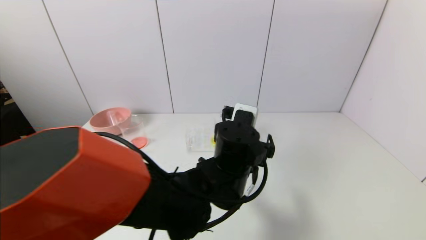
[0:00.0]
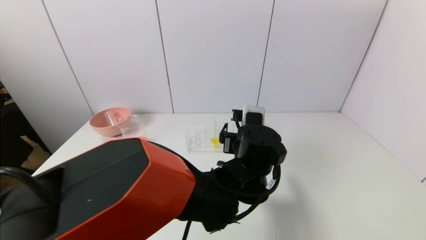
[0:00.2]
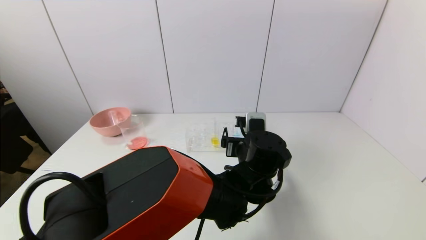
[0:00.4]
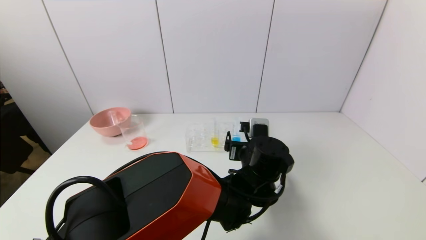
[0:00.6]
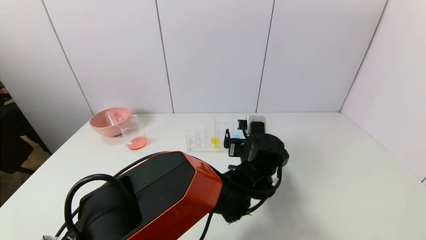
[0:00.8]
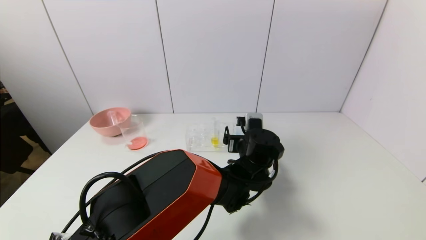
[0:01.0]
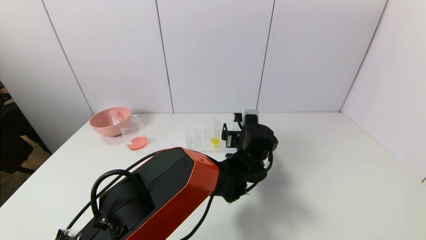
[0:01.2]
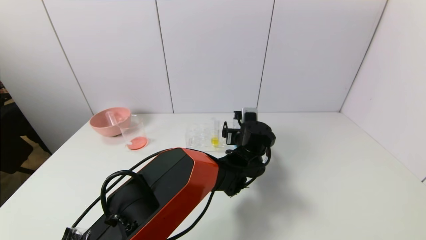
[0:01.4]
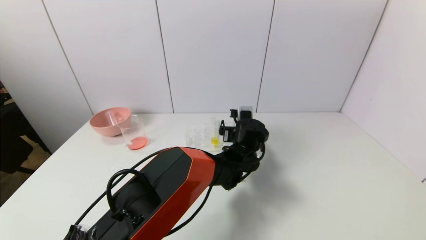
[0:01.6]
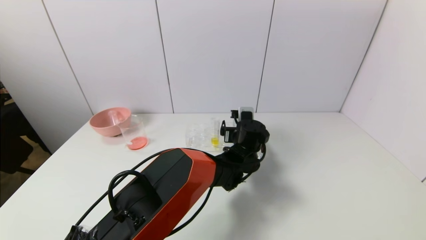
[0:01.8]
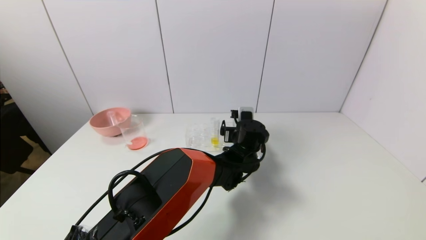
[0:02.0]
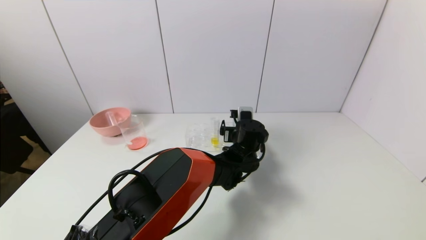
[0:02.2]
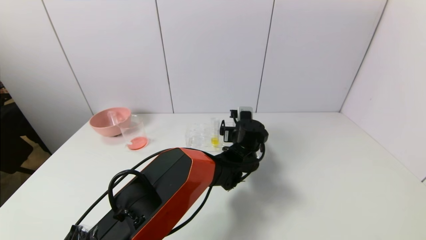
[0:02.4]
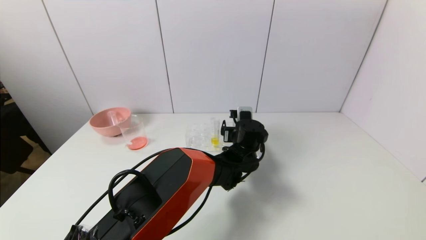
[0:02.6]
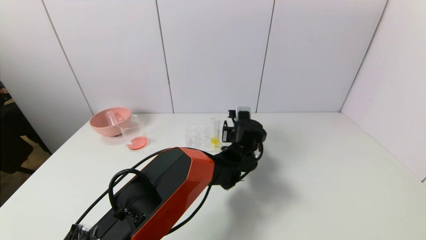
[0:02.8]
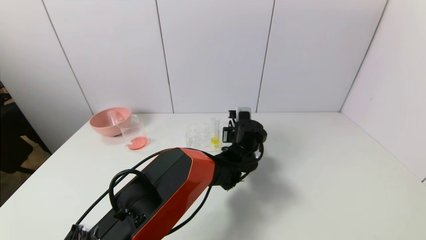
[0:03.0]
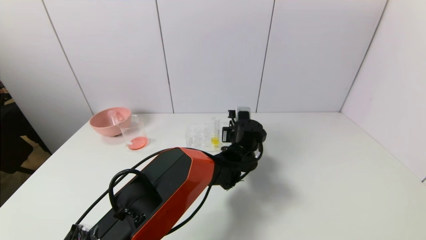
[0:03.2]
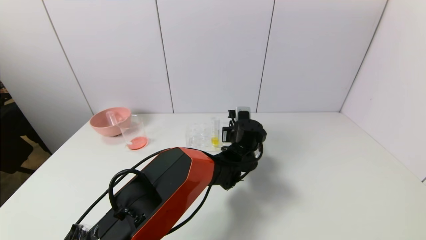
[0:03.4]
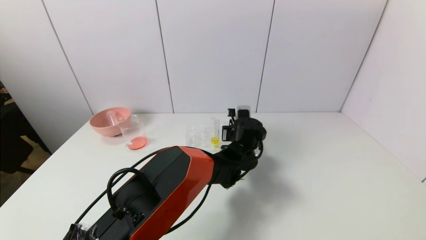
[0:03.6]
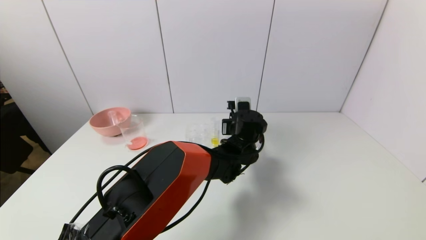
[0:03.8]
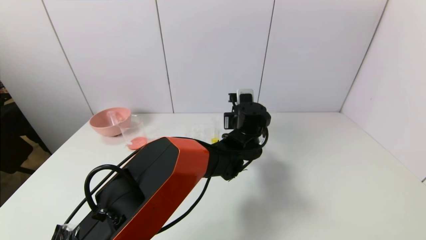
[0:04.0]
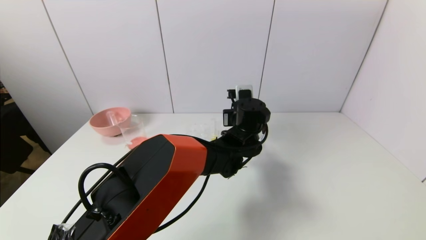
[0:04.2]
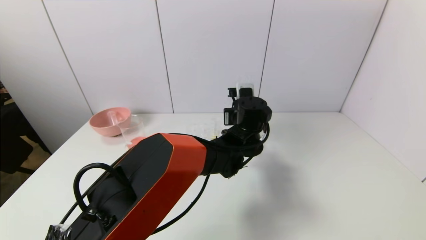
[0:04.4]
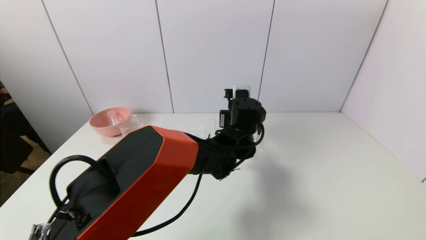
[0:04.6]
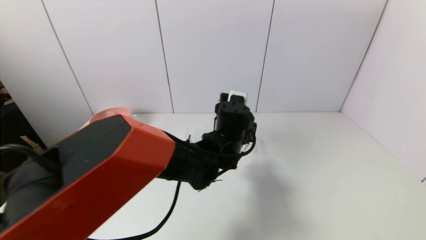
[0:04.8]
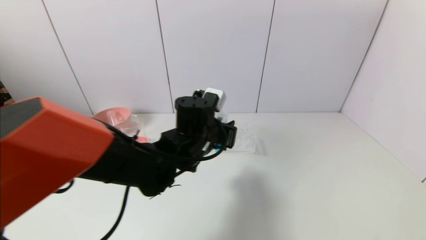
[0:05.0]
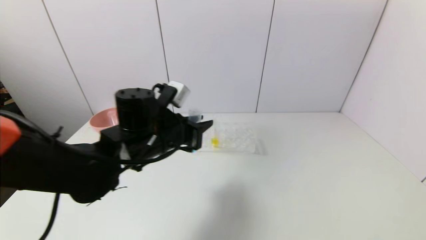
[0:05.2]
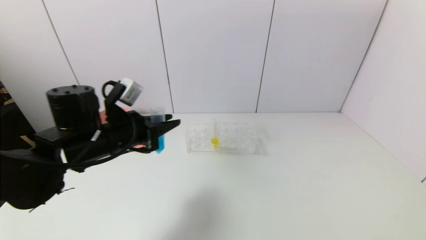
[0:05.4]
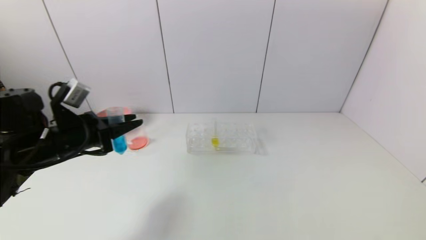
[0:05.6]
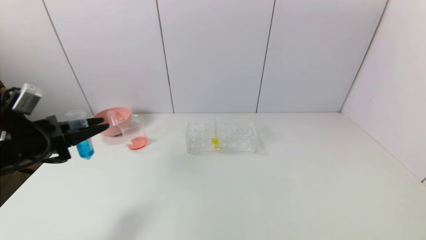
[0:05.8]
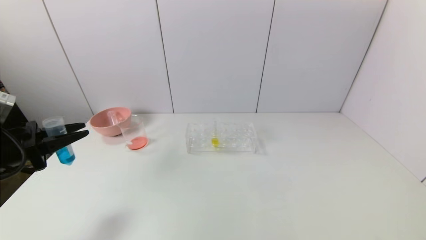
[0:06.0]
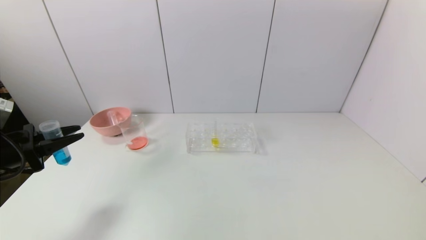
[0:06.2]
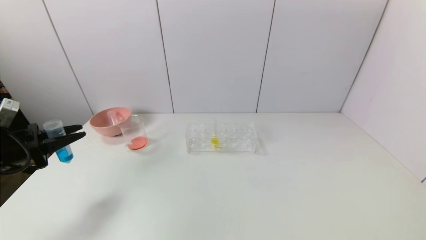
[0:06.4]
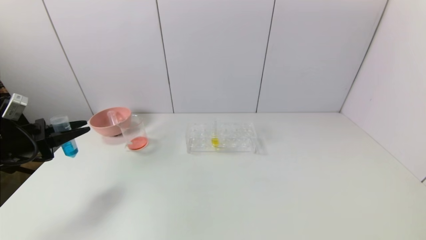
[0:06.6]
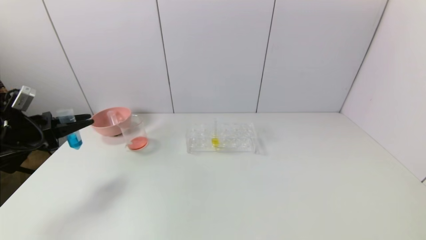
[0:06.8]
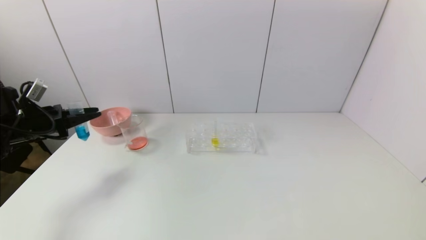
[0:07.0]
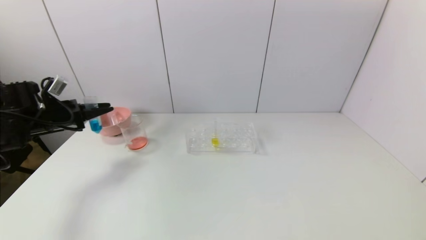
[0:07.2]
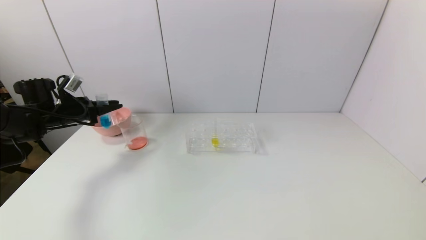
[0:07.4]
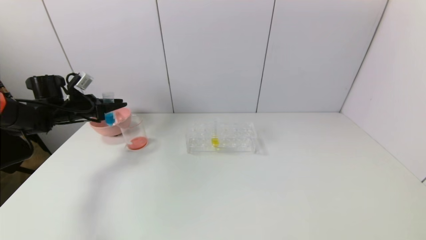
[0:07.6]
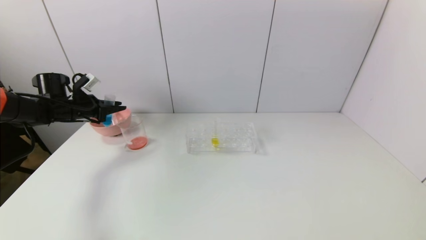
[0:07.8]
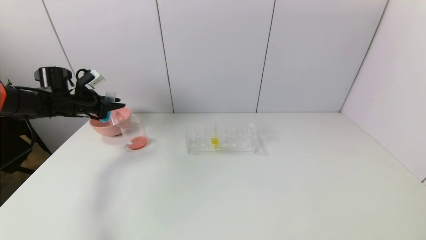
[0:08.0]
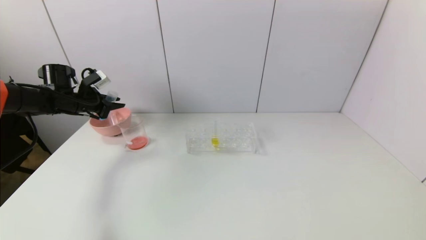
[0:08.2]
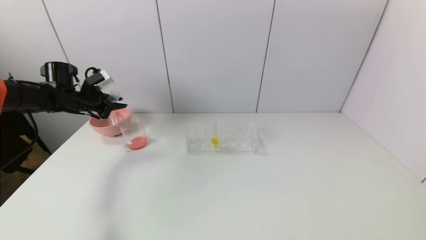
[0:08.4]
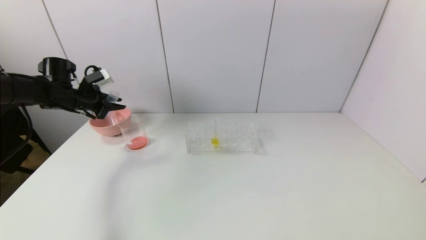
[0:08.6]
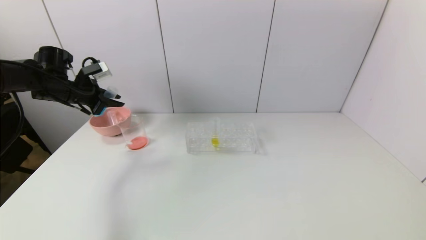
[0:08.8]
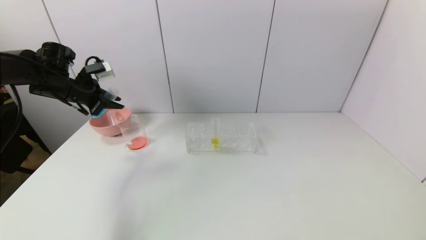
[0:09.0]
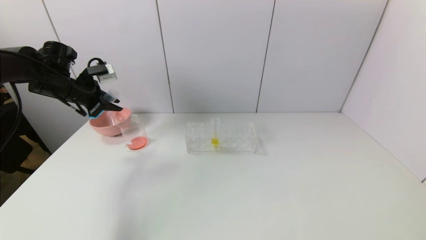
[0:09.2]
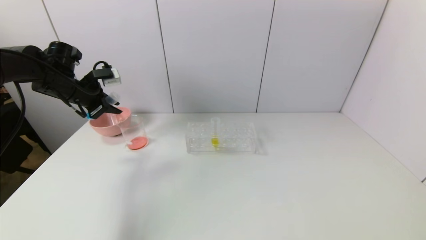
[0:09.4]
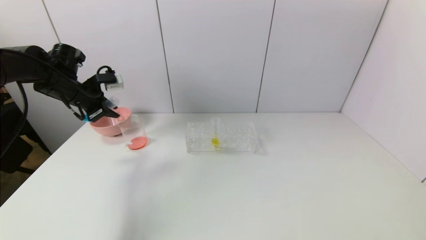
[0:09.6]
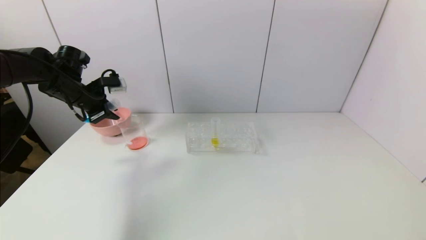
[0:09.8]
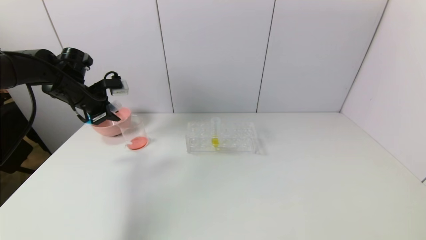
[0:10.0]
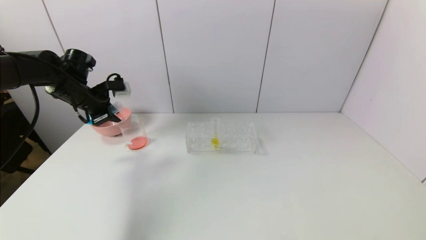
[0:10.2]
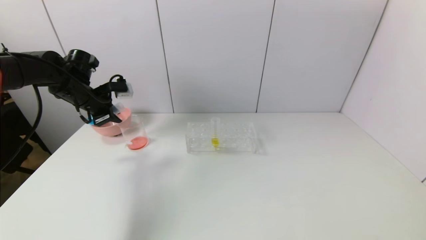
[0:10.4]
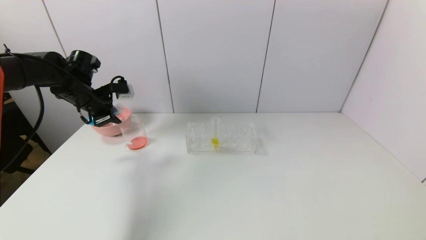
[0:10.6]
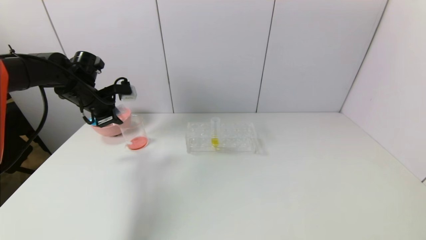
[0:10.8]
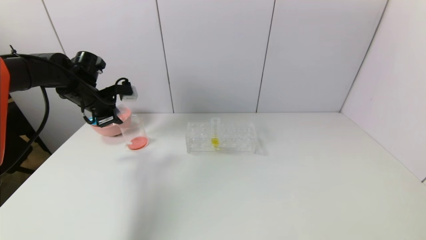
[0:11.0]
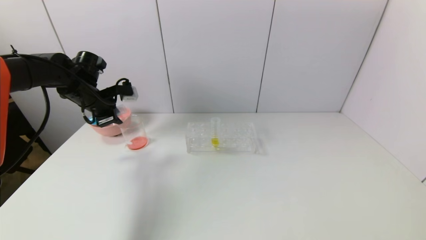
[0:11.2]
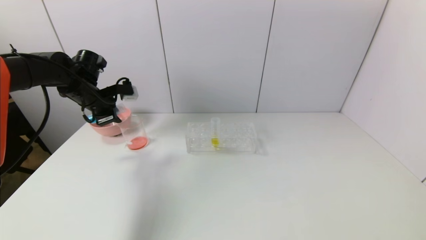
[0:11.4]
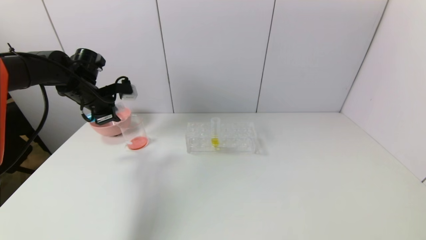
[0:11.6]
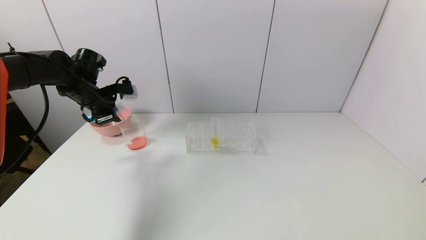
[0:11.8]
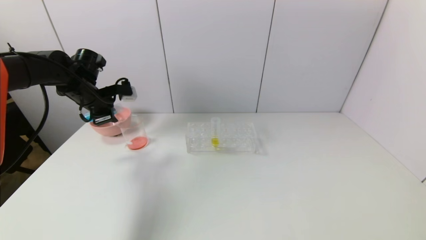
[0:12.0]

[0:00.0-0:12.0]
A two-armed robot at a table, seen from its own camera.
Task of the whole recording: pick up the test tube with red pigment and the test tube with blue pigment by grippers and pour them into the container.
Step, 0:00.0 to 0:03.0: Grasp the blue reagent with the left gripper.
0:00.0 to 0:01.6: The left gripper goes roughly 15 cm forward, downward and to the right.
0:01.6 to 0:03.0: The left gripper closes up.
0:03.0 to 0:04.4: The left gripper heads upward, covering some 10 cm.
0:04.4 to 0:06.0: The left gripper moves to the left, approximately 50 cm.
0:06.0 to 0:07.6: The left gripper shifts some 20 cm forward.
0:07.6 to 0:09.0: The left gripper moves upward, some 10 cm.
0:10.4 to 0:12.0: The grippers move only a little.

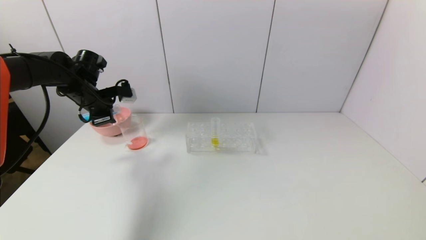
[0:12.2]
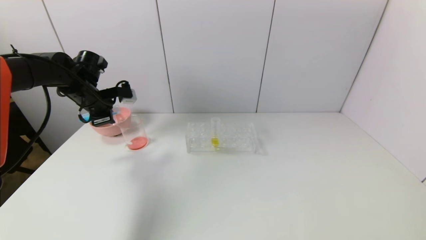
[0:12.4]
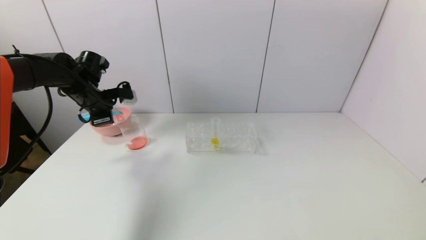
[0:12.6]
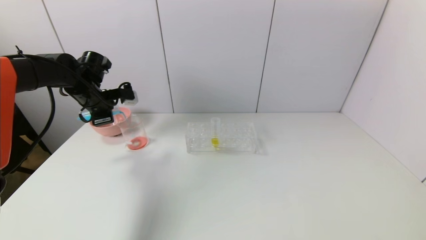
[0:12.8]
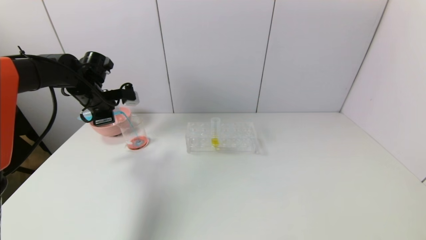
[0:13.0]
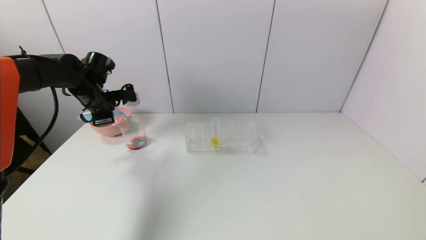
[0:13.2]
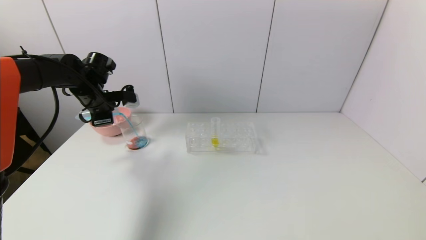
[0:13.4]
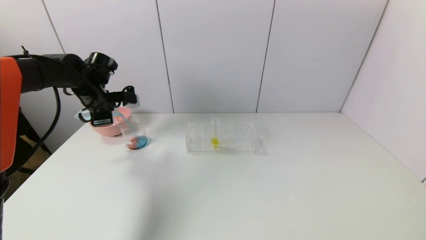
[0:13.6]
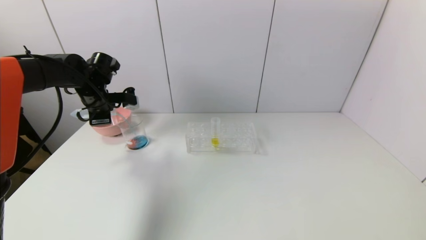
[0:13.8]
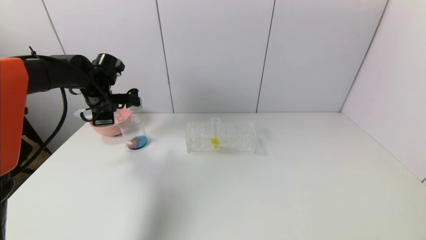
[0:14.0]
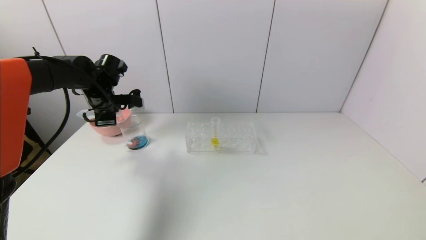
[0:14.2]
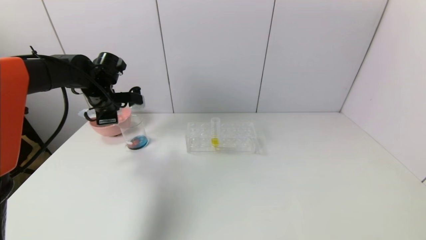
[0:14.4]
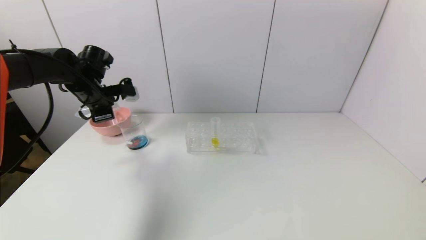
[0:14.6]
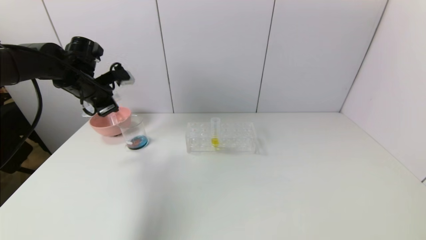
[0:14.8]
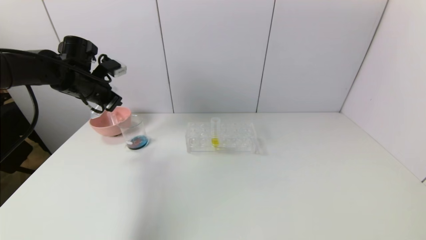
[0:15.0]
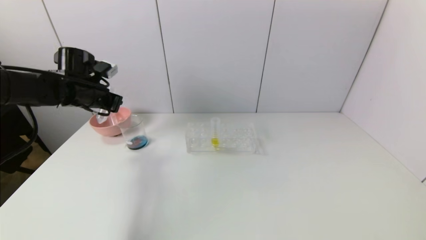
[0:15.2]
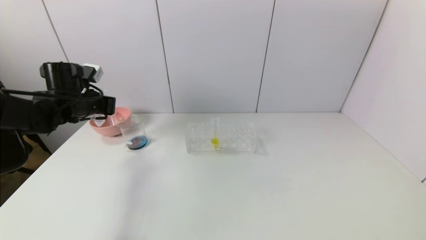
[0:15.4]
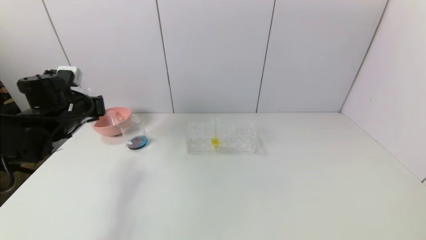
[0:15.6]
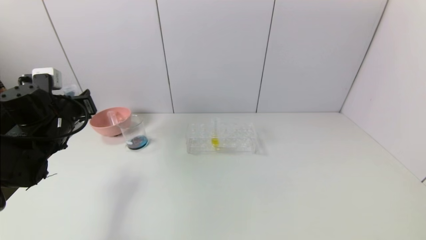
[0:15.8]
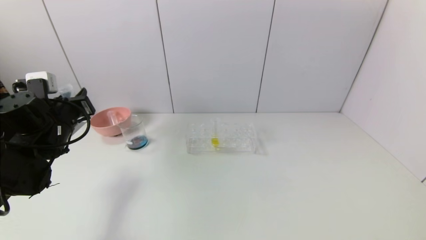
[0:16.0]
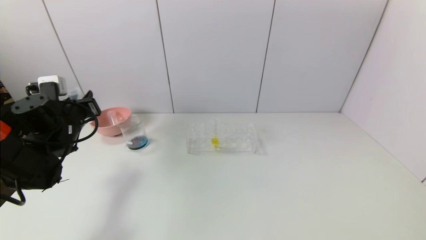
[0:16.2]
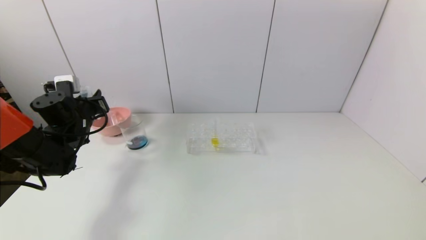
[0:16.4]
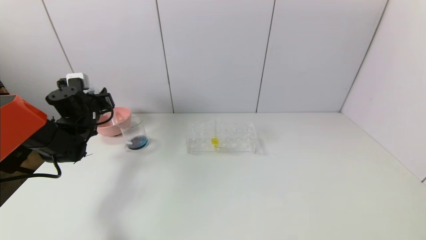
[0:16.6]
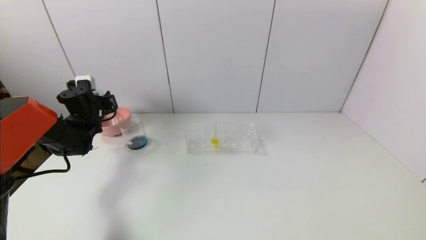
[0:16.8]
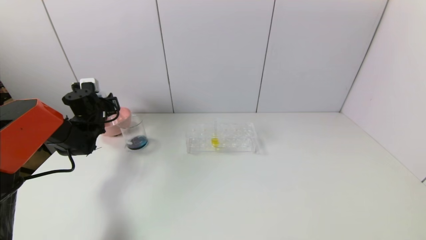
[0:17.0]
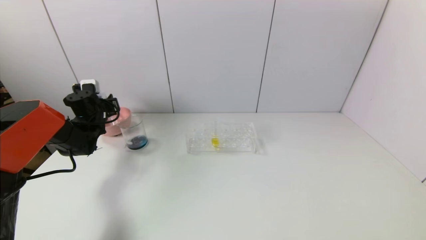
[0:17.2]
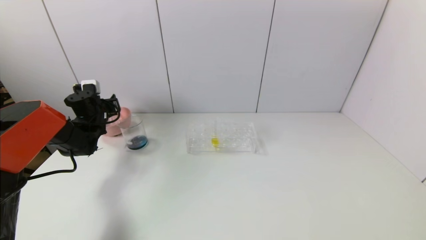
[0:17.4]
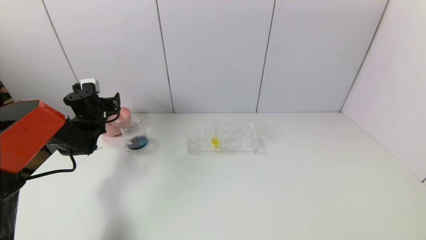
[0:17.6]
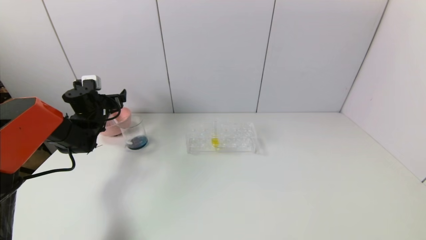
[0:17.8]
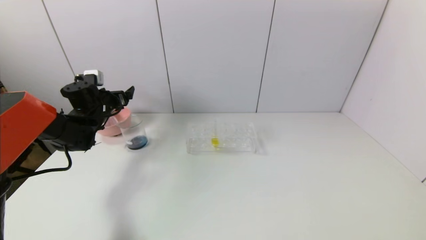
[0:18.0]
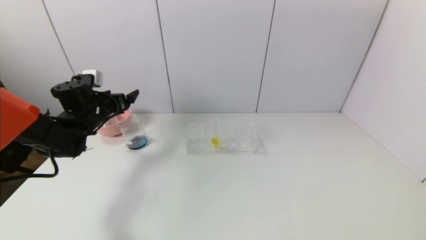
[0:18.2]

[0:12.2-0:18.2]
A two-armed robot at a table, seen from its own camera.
Task of the whole recording: pick up the test tube with red pigment and the test tube with blue pigment by grippers and pour them into the container.
Step, 0:12.2 to 0:14.6: Pour the blue reagent into the graduated cylinder with the left gripper.
Step, 0:14.8 to 0:17.4: Place the test tube into the bowl with the left gripper.
0:12.2 to 0:13.8: The grippers make only small movements.
0:15.2 to 0:16.6: The left gripper goes some 5 cm downward, and reaches some 10 cm backward, then returns.
0:16.6 to 0:18.2: The left gripper opens up.
